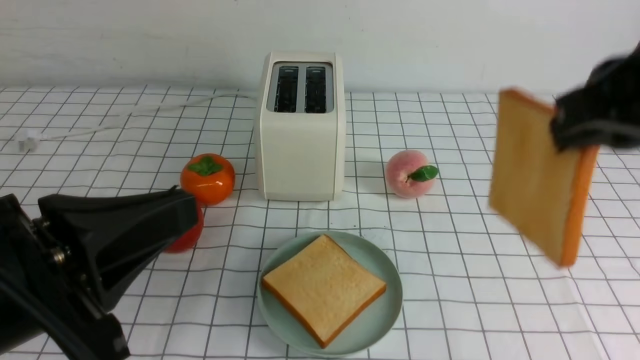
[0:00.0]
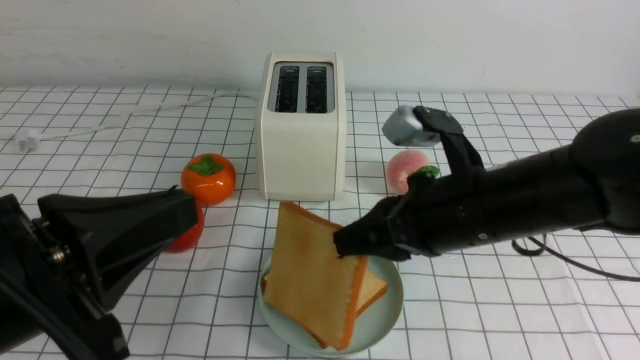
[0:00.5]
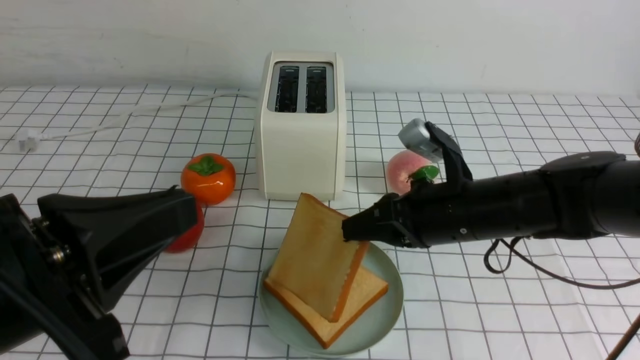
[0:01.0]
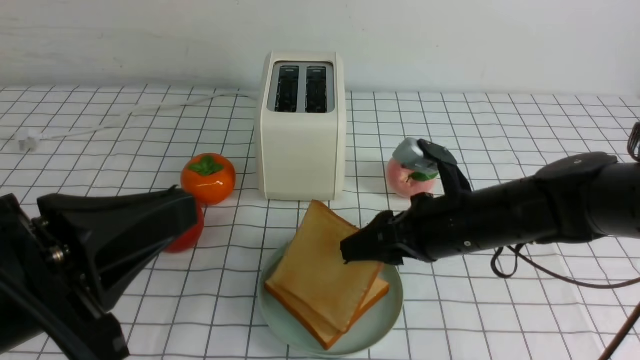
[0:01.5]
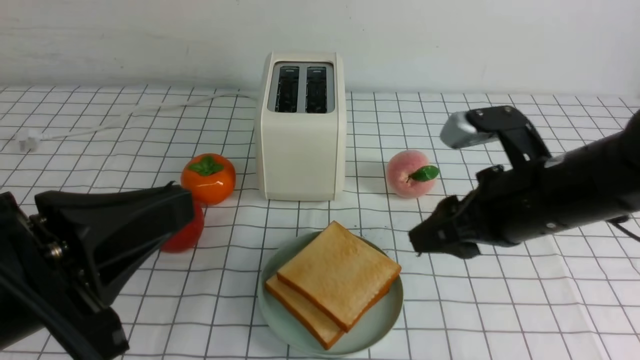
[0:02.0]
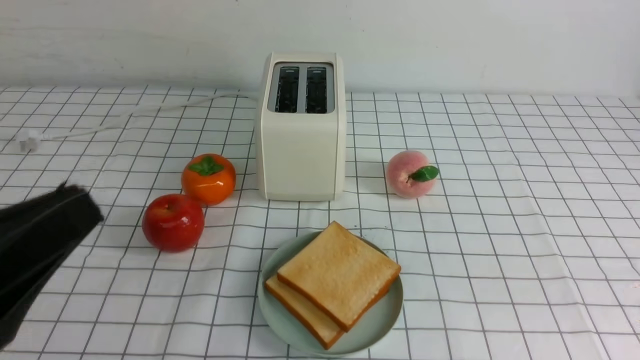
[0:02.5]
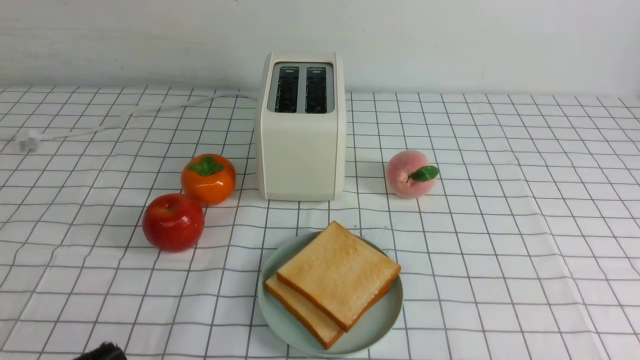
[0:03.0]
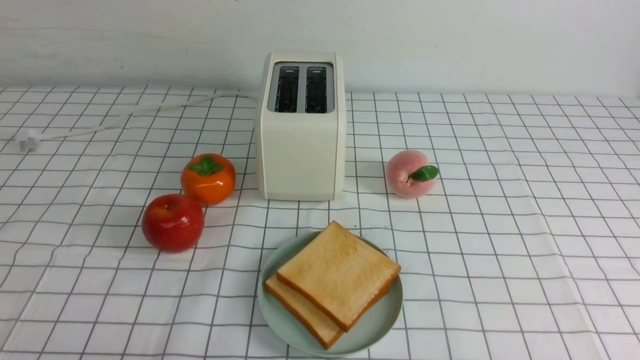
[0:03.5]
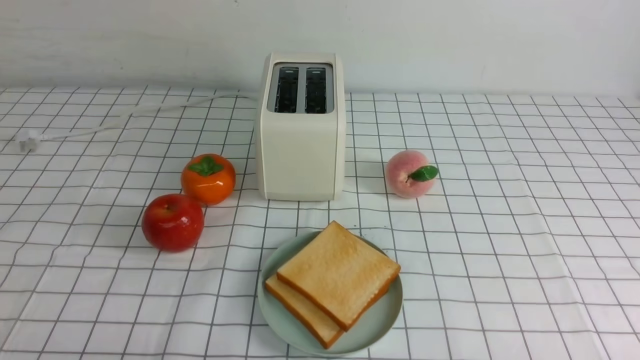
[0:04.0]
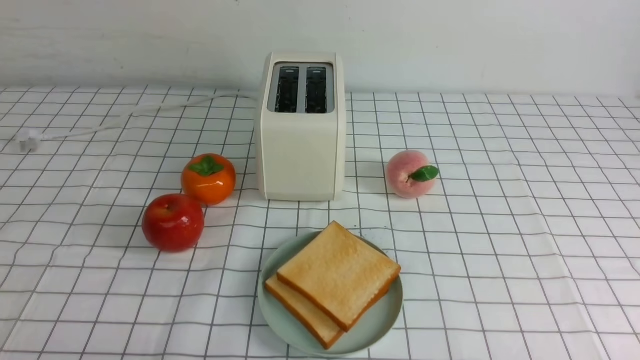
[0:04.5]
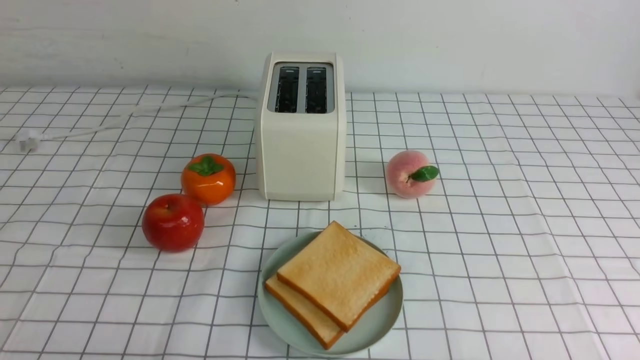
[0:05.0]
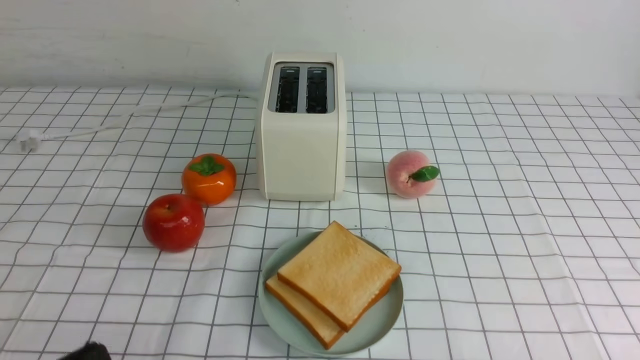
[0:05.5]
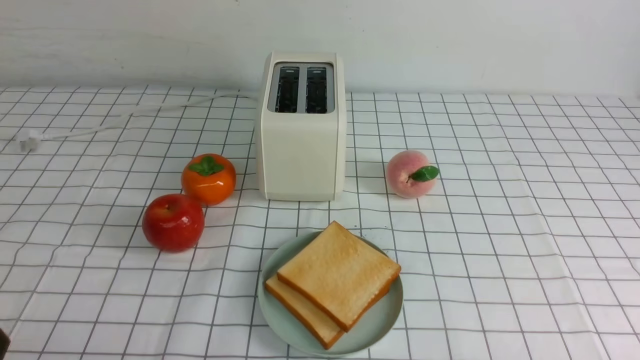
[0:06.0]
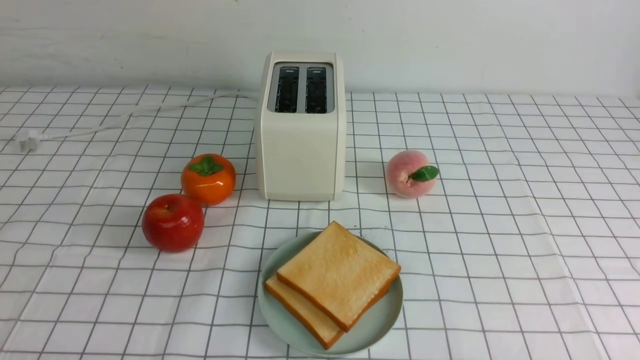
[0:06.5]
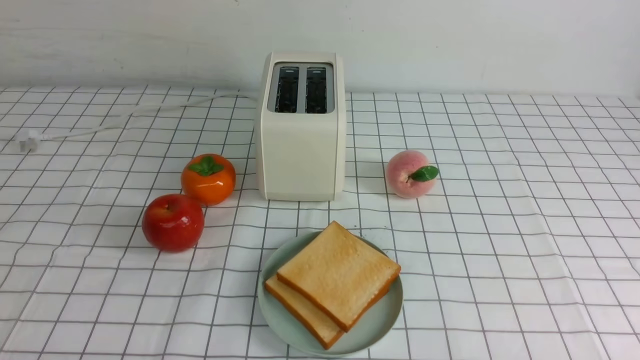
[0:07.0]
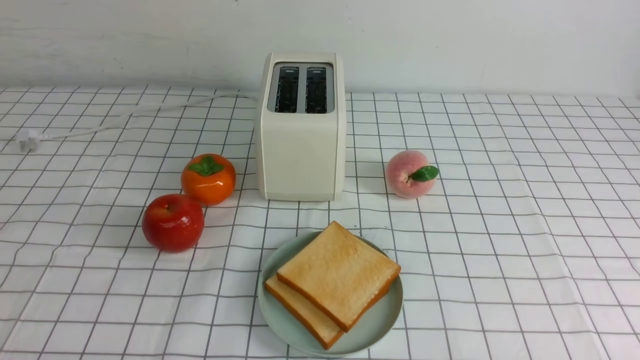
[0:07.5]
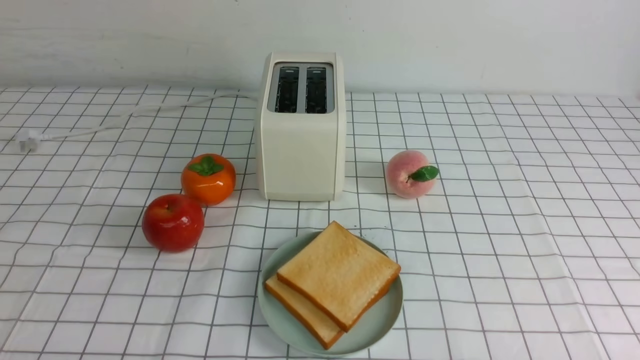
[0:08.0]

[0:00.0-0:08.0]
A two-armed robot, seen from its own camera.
Task of the whole recording: take toasted bread from bread machine on white checkered table place on plate.
Step, 0:00.0 to 0:02.0: use the right arm to put a slice of bread into the plate.
0:00.0 to 0:02.0: The right gripper travels downward by approximately 20 cm, and opens.
0:02.0 to 0:04.0: The right gripper goes some 25 cm backward and to the right, and closes up. The left gripper is displaced downward by some 15 cm.

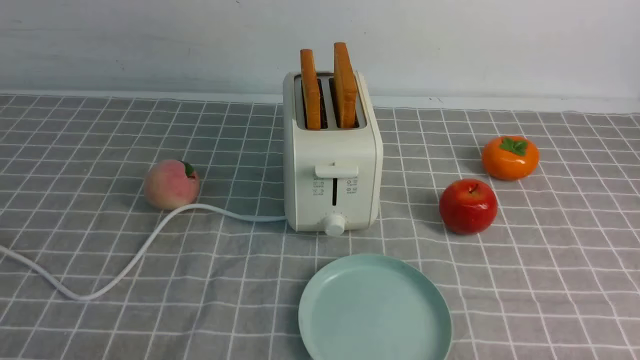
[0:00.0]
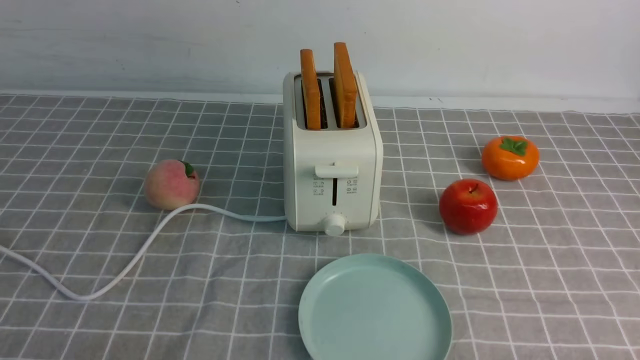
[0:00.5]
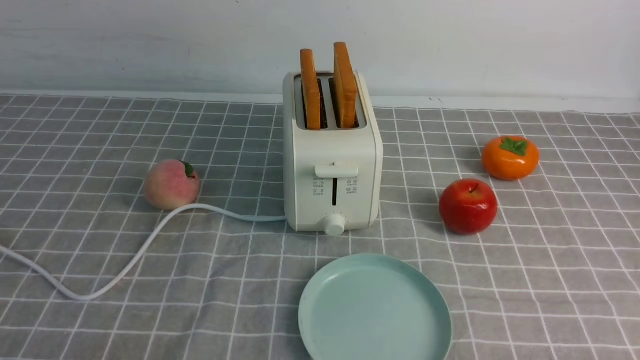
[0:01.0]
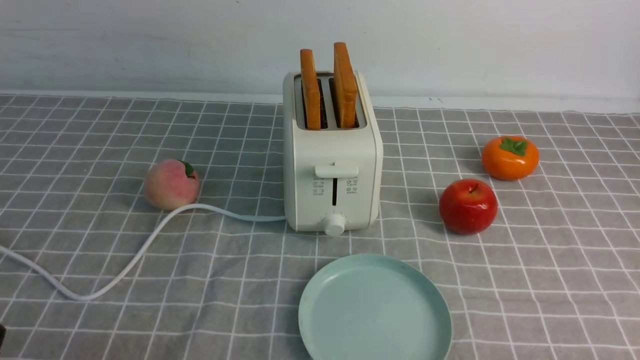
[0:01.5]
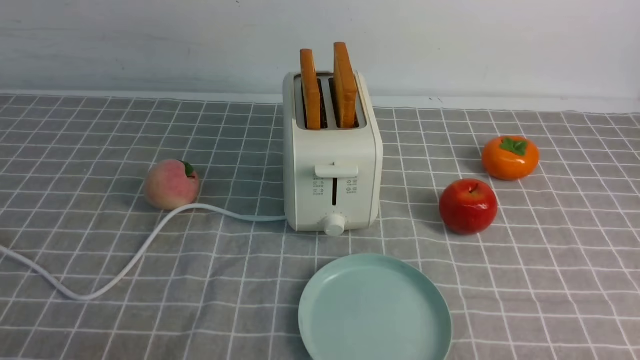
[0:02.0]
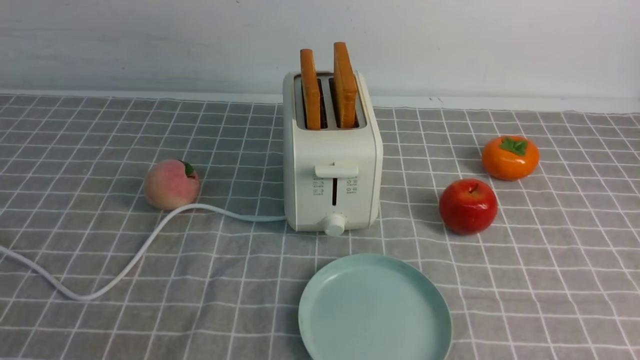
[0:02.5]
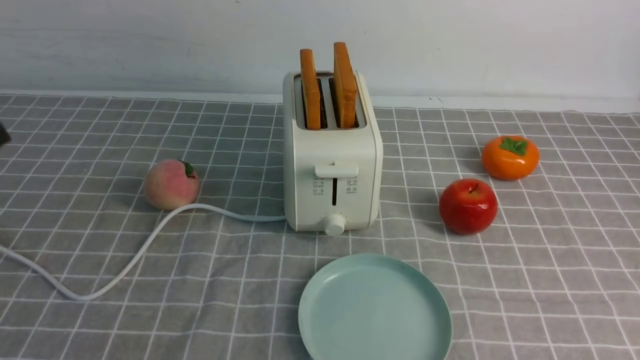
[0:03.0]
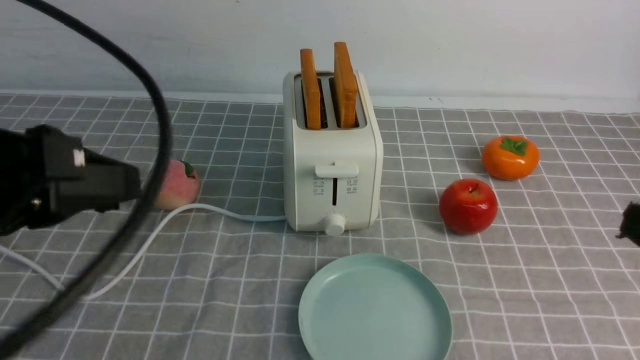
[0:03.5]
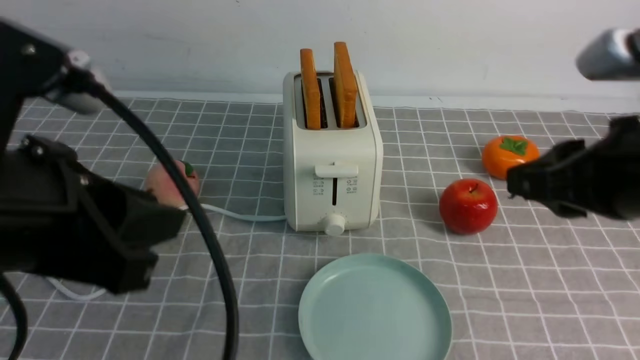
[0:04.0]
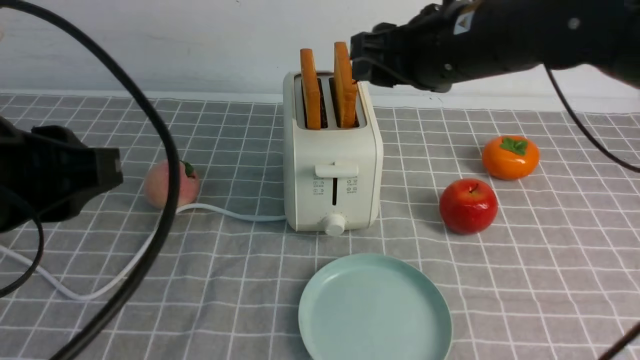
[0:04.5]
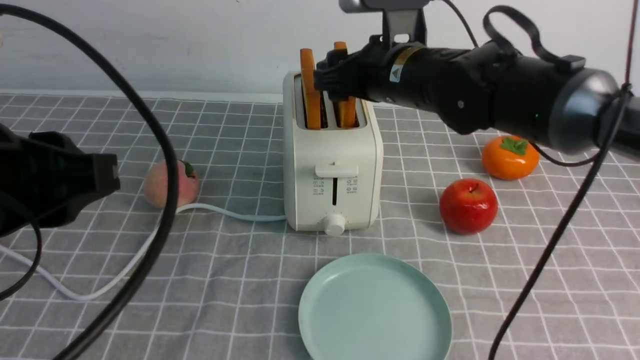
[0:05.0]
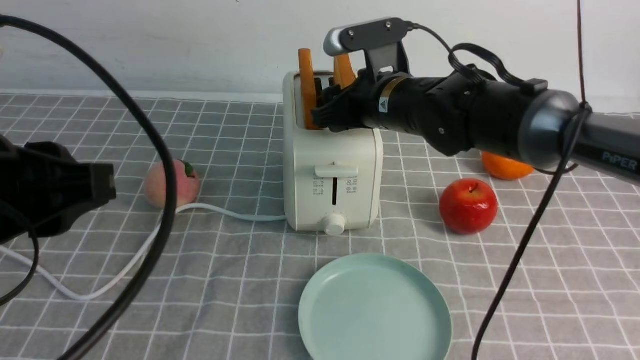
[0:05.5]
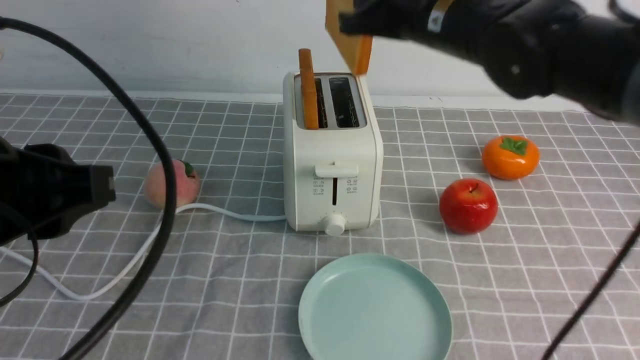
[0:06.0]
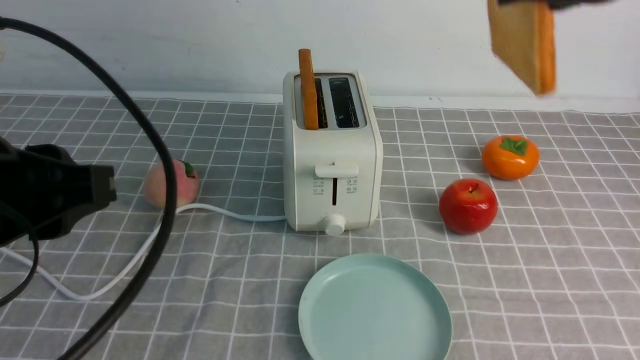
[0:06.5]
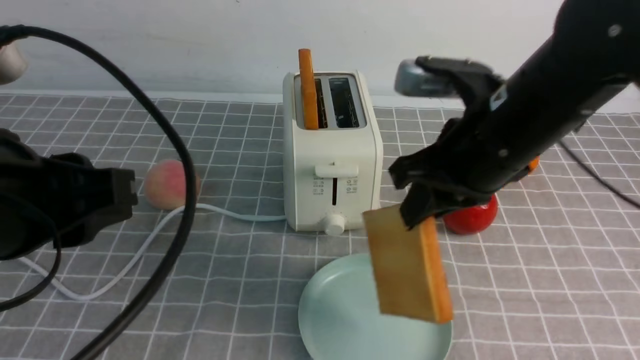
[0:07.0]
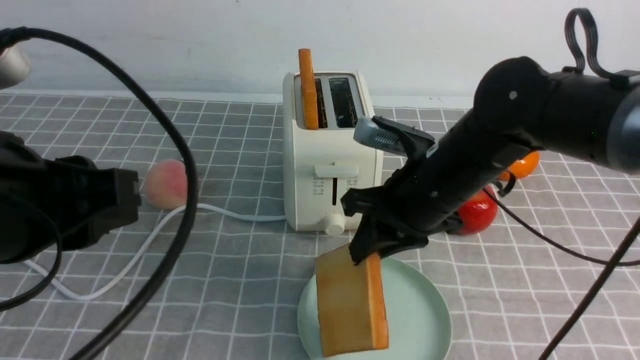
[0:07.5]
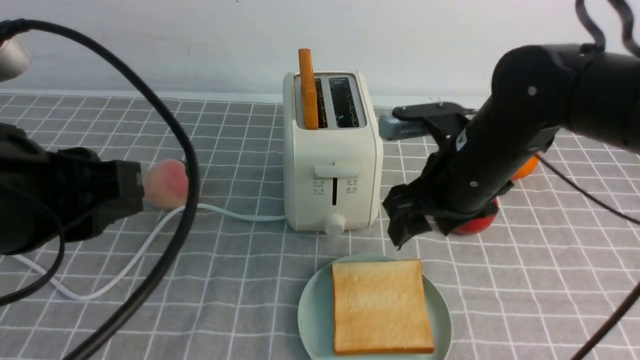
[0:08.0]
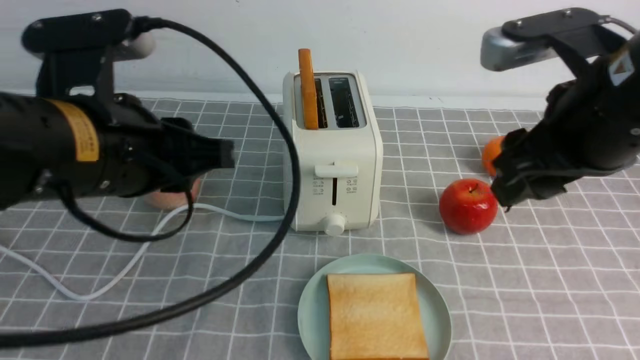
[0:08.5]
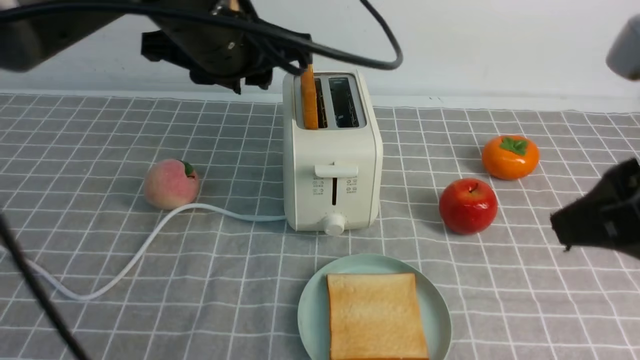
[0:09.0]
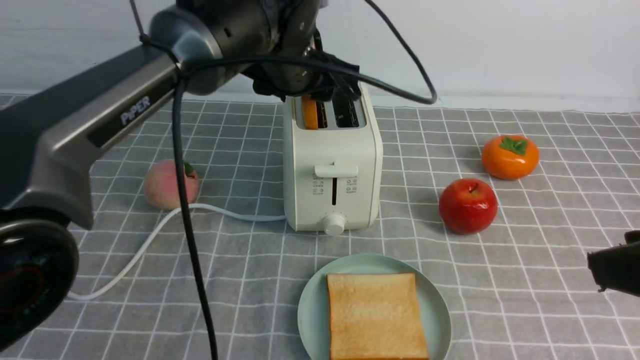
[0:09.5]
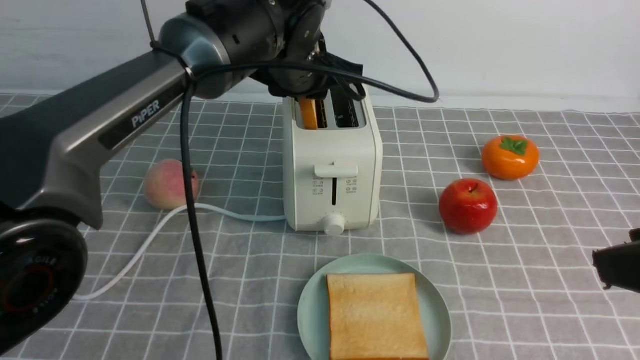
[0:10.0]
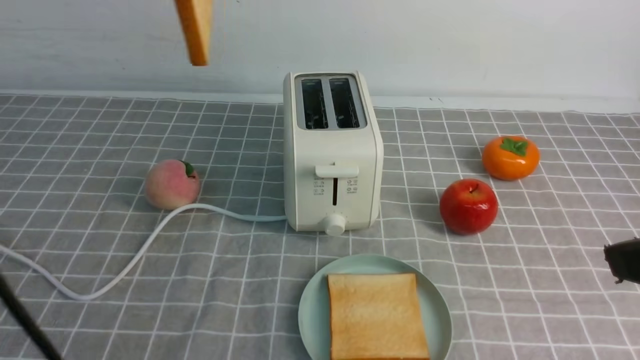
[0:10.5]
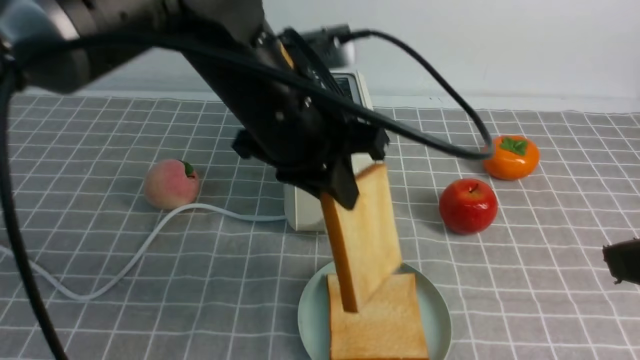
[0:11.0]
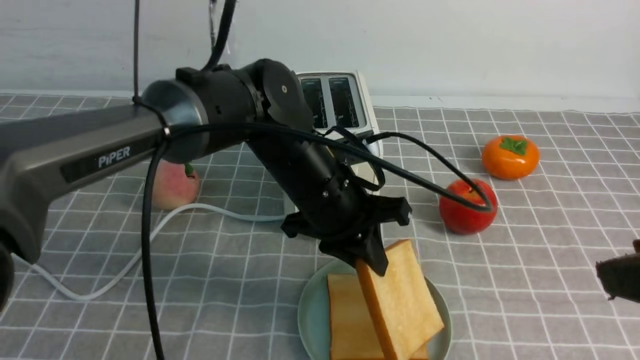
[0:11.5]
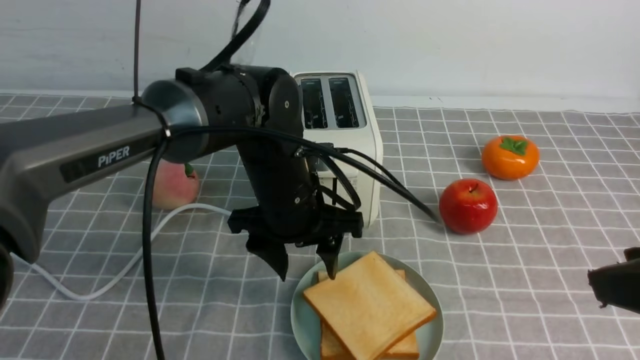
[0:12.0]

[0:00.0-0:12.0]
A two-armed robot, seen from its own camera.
Task of the whole recording: take toasted bread from bread machine on grey coffee table place on plate.
Step, 0:00.0 to 0:05.5: use the right arm to take out a slice of bread.
Step, 0:06.0 to 0:08.0: use the right arm to put a slice of bread into the plate.
Step, 0:08.5 to 0:10.0: use the left arm to take out a slice of bread.
0:02.0 to 0:04.0: The right gripper shifts about 25 cm upward, forward and to the left. The left gripper heads upward, to the right and forward, covering roughly 20 cm.
0:04.0 to 0:06.0: The right gripper moves forward and to the left, about 20 cm, and opens, then closes again.
0:06.0 to 0:08.0: The right gripper shifts about 15 cm downward and backward, and opens its fingers.
0:08.0 to 0:10.0: The left gripper heads forward and to the right, covering some 30 cm, and opens, then closes again, while the right gripper goes about 25 cm backward, to the right and upward.
0:10.0 to 0:12.0: The left gripper shifts roughly 15 cm downward and backward, and opens.
